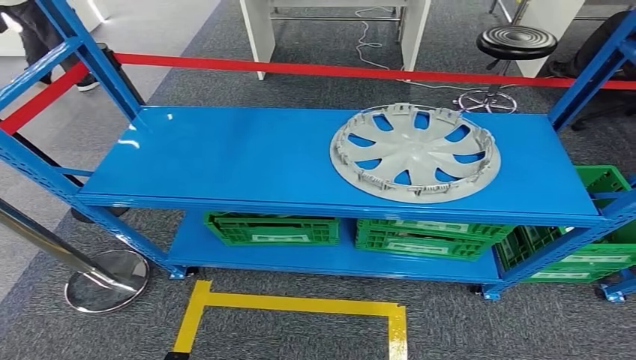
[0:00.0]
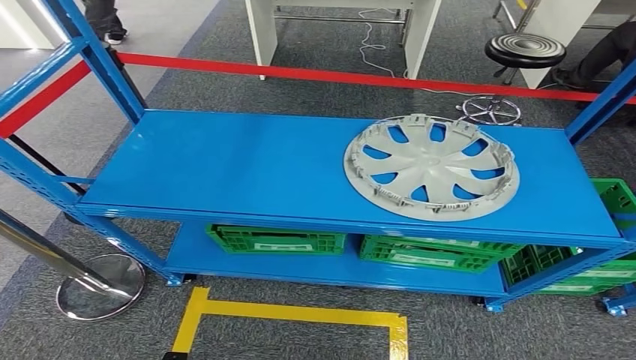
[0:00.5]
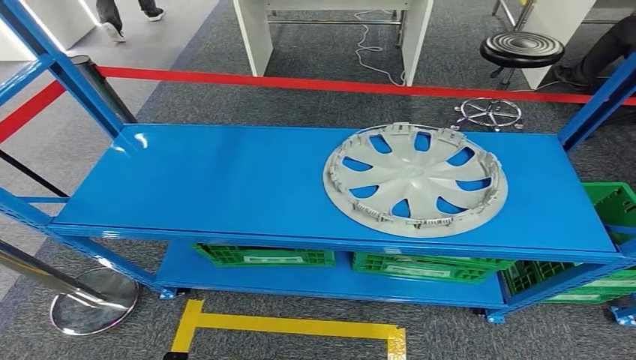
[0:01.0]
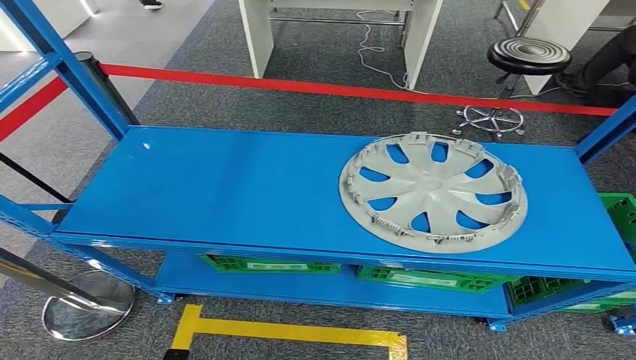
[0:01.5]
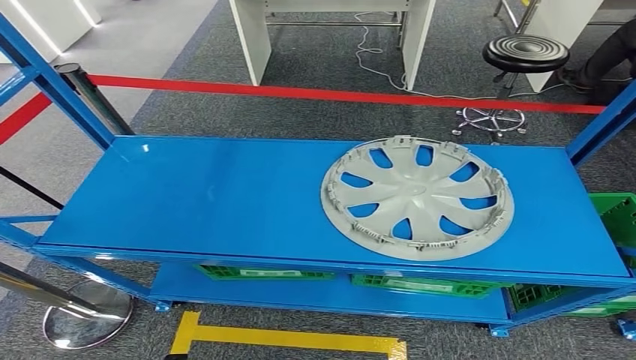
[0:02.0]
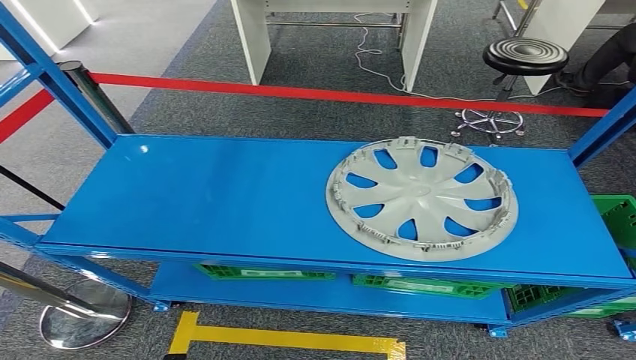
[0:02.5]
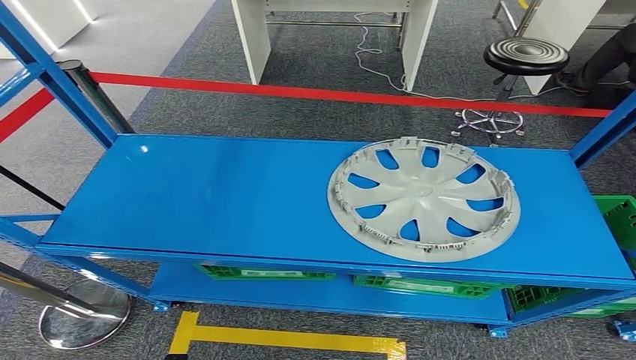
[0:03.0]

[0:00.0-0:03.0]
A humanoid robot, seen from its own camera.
Step, 0:00.0 to 0:03.0: Move to the initial position at the workbench.
